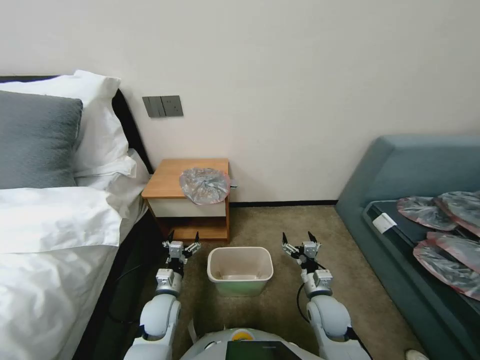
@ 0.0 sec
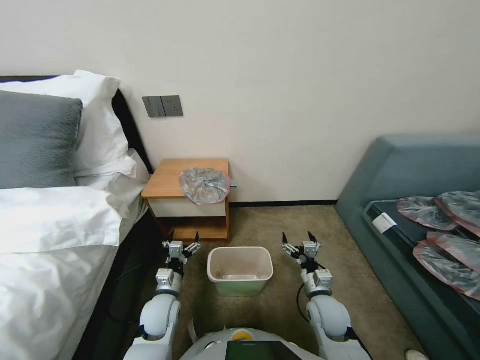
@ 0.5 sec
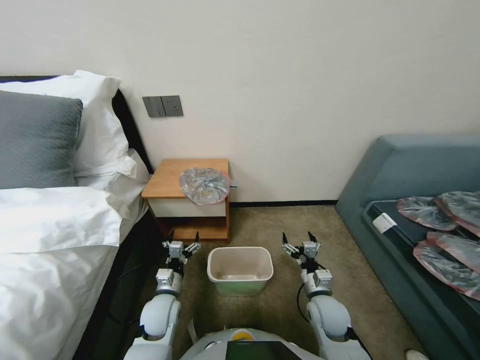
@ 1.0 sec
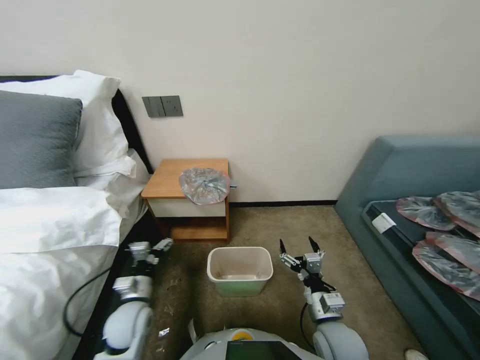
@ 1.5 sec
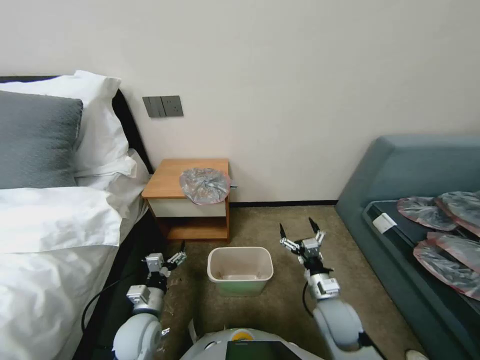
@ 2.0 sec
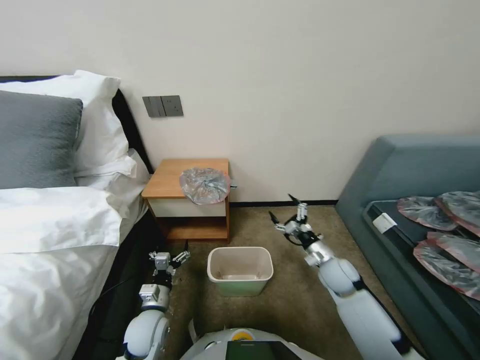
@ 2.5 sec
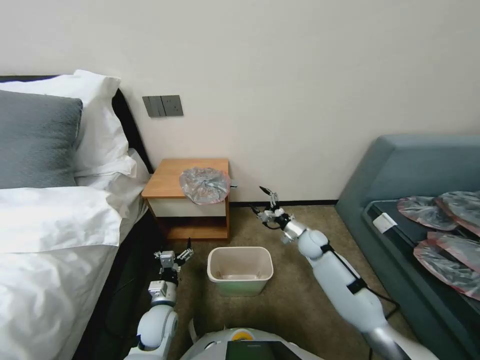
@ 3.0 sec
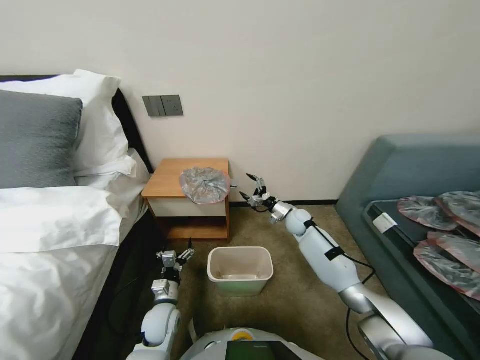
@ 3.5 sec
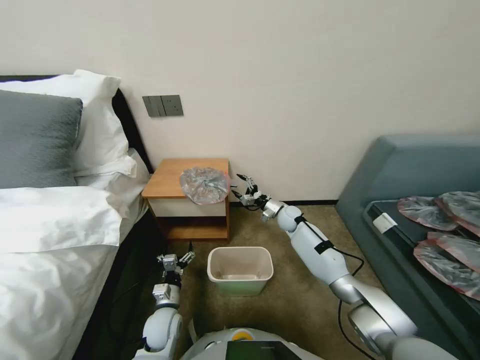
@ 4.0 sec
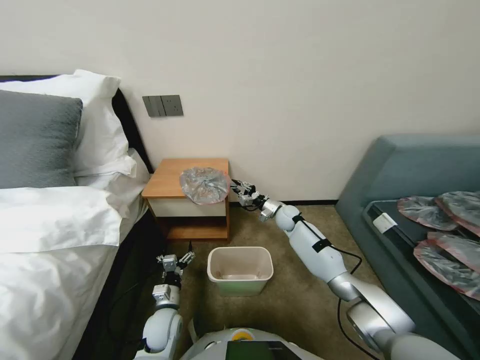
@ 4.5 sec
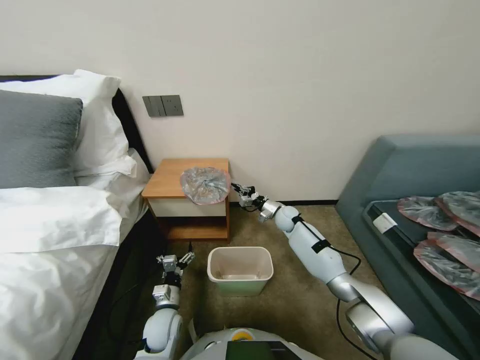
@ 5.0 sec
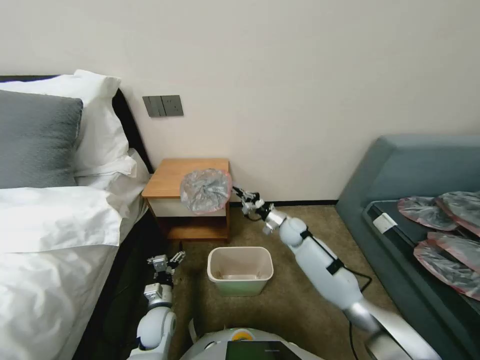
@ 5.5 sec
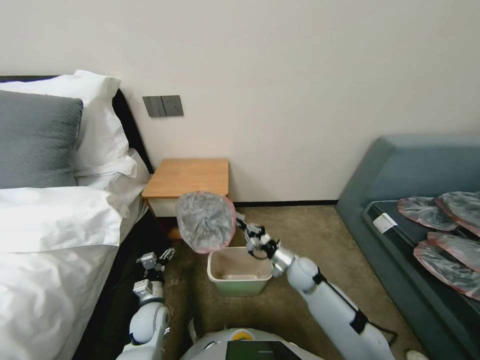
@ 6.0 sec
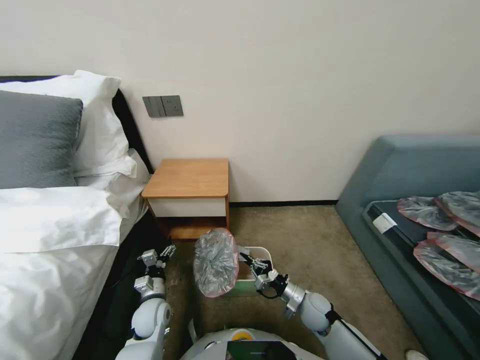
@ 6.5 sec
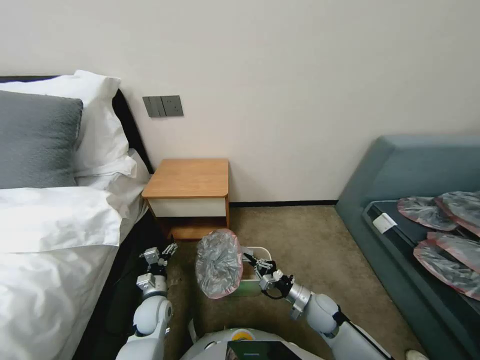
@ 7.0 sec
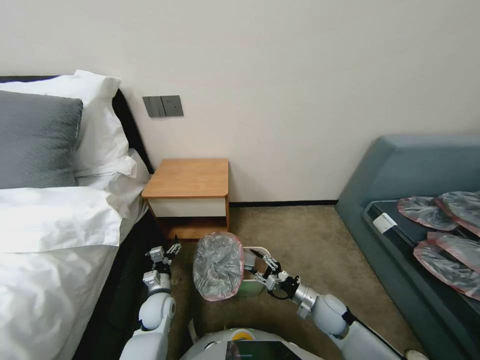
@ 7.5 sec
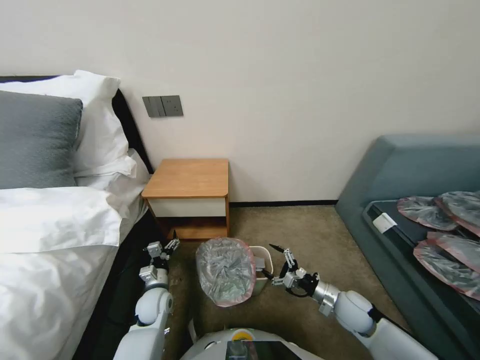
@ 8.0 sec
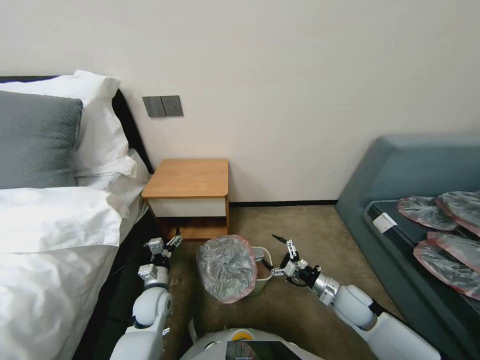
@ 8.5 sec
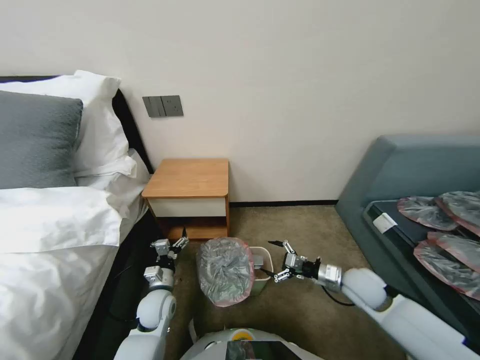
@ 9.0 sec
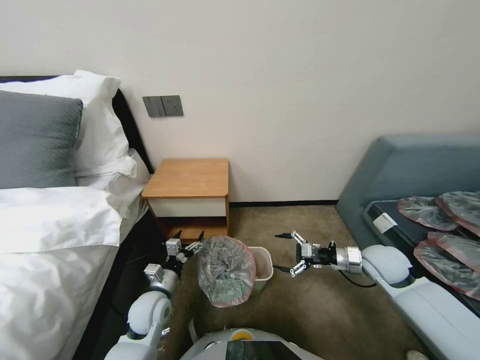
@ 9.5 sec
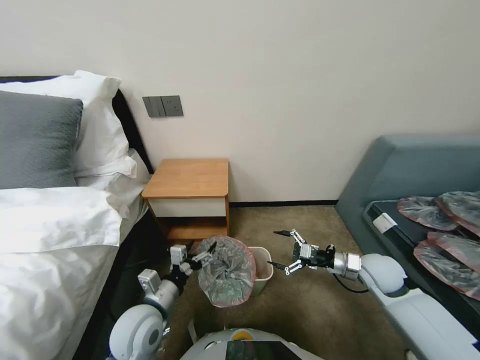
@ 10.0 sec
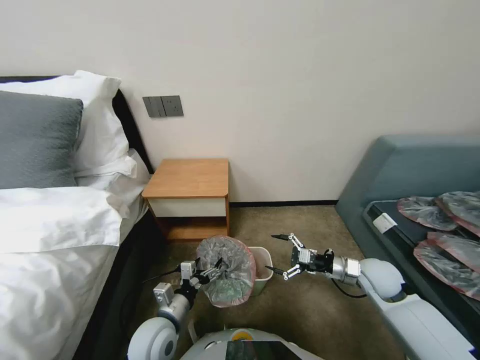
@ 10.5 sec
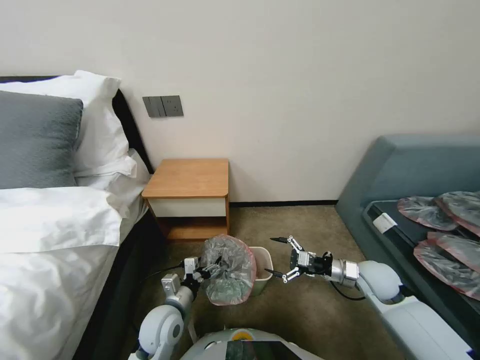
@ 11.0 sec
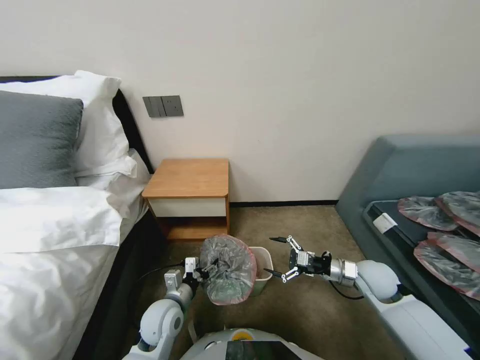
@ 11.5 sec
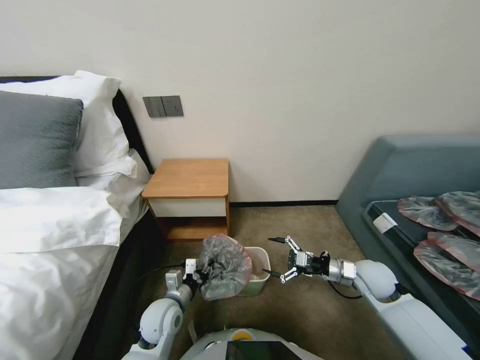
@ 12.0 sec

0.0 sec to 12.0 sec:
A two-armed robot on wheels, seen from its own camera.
Task of the whole recording: Pick up the garbage bag from the table and place it over the trash can.
2.0 sec to 4.0 sec: The right gripper travels forward by about 35 cm. The left gripper shifts roughly 5 cm downward.
4.0 sec to 6.0 sec: The right gripper shifts about 15 cm backward, and closes its fingers.
6.0 sec to 8.0 sec: The right gripper travels backward and to the right by some 15 cm, and opens.
8.0 sec to 10.0 sec: The right gripper shifts roughly 15 cm upward and forward. The left gripper travels upward and backward by approximately 15 cm.
10.0 sec to 12.0 sec: The left gripper heads downward, covering approximately 10 cm, and closes up.

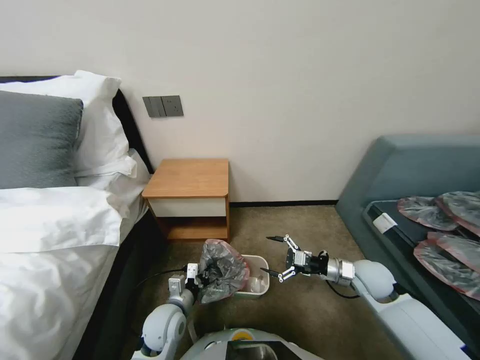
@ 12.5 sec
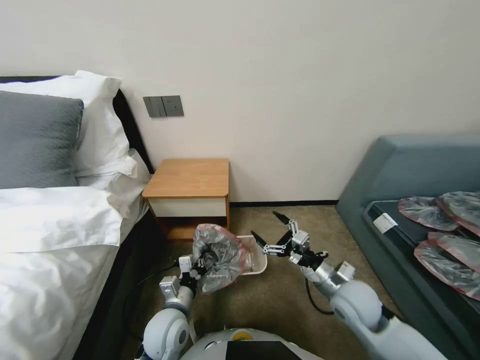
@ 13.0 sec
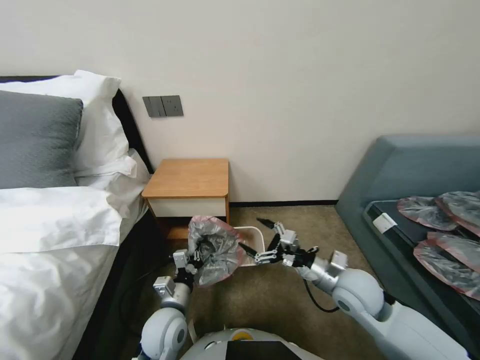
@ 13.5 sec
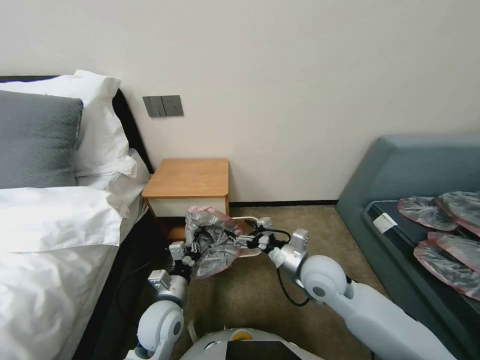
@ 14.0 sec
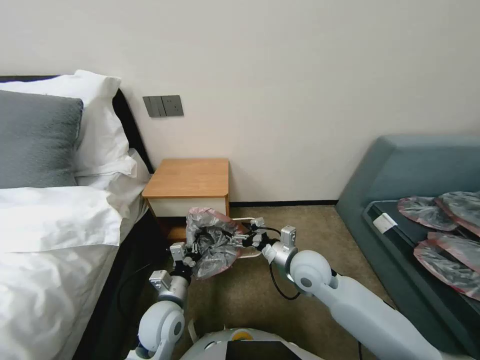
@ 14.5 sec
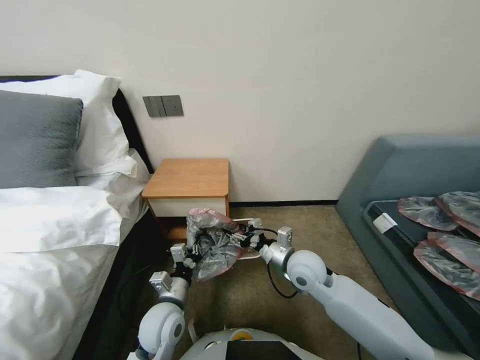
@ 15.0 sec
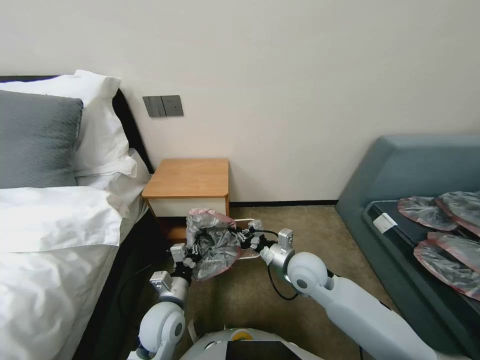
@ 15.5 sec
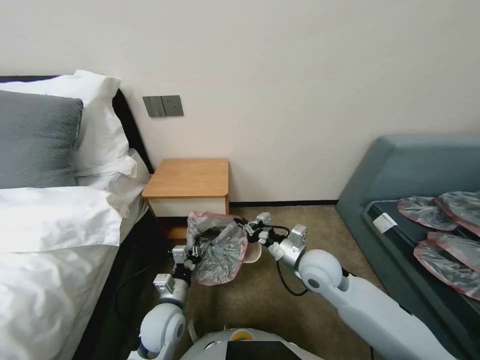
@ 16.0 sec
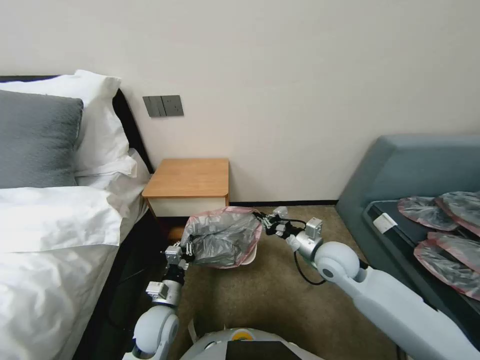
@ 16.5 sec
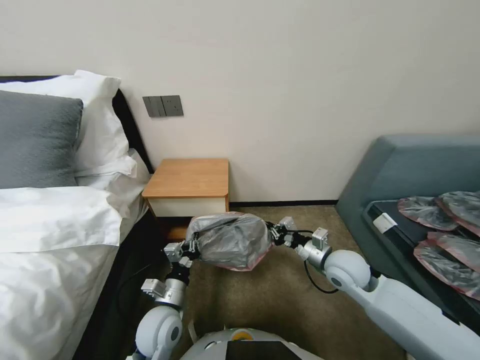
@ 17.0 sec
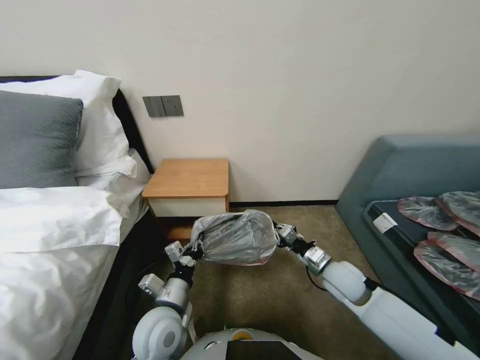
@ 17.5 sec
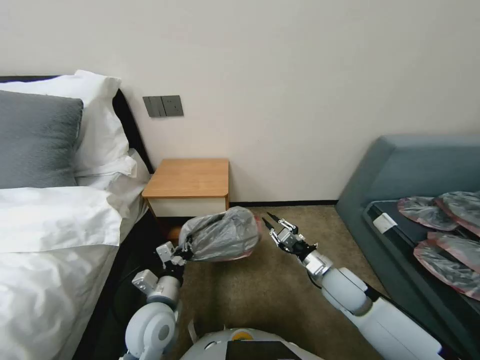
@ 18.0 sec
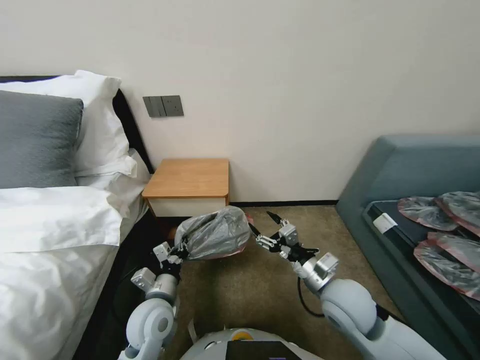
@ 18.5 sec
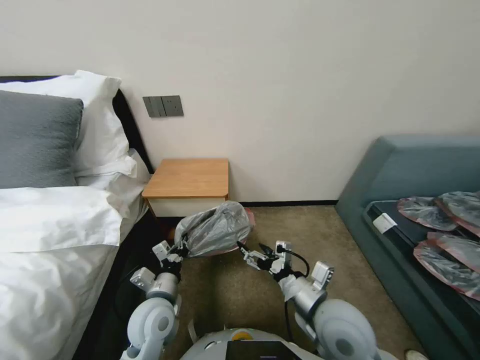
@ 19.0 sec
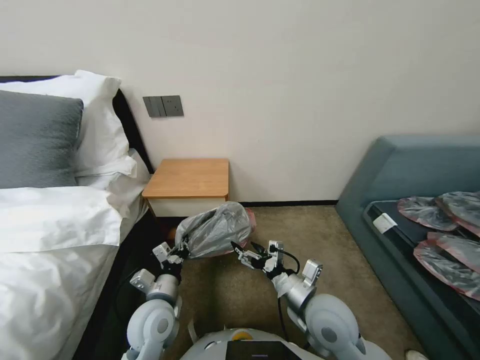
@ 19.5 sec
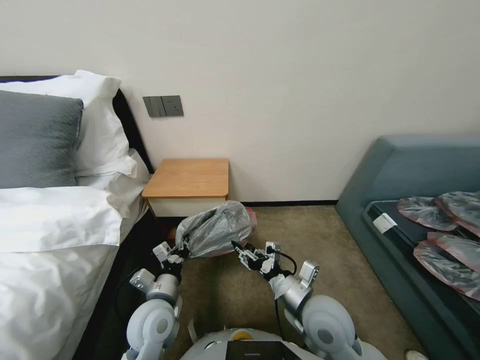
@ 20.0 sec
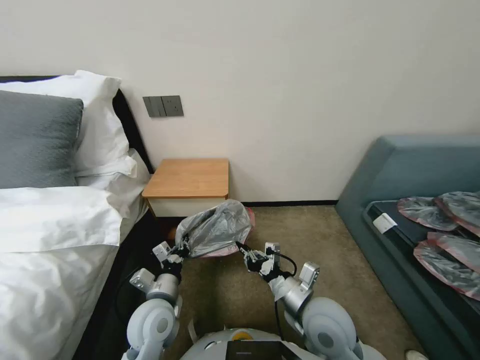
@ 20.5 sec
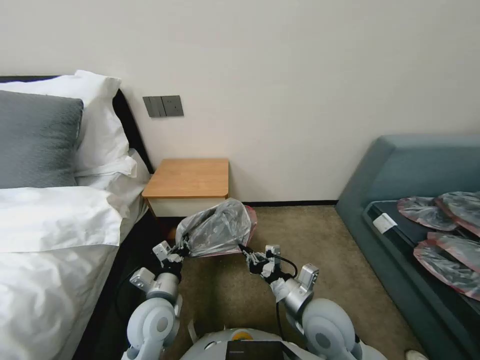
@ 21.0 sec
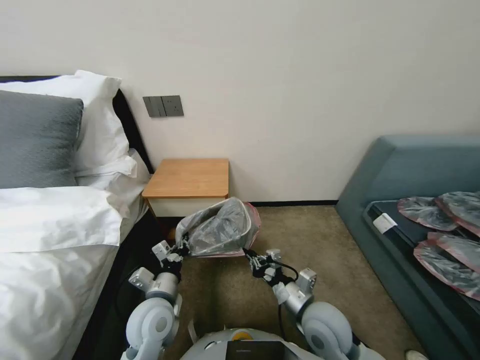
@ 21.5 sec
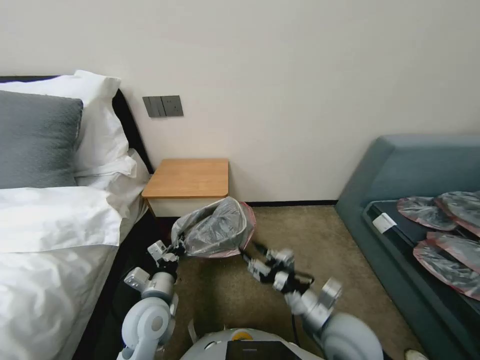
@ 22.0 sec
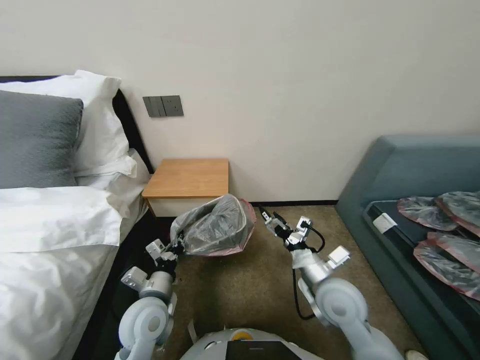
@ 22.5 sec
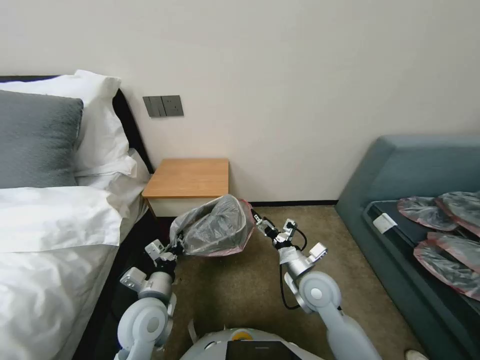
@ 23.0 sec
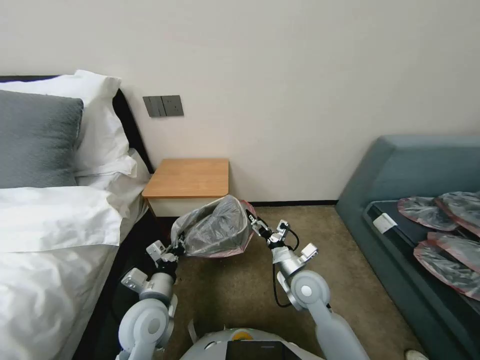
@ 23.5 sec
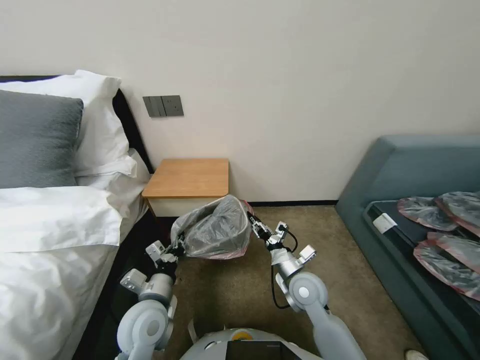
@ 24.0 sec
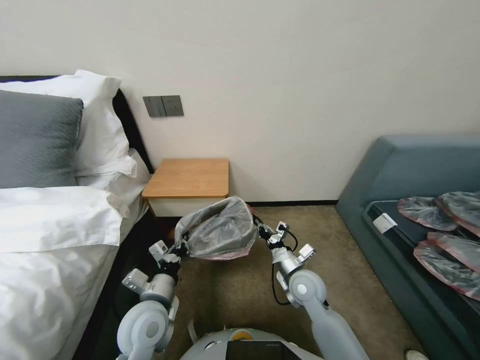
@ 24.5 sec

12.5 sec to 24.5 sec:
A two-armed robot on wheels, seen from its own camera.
Task of the whole recording: Pick up the garbage bag from the table and place it over the trash can.
12.5 sec to 14.5 sec: The right gripper moves to the left, roughly 20 cm.
14.5 sec to 16.5 sec: The right gripper heads to the right, covering about 5 cm, and closes up.
16.5 sec to 18.5 sec: The right gripper travels backward by roughly 10 cm, and opens, while the left gripper travels upward by some 5 cm.
18.5 sec to 20.5 sec: The right gripper goes about 5 cm to the left, and closes its fingers.
20.5 sec to 22.5 sec: The right gripper opens its fingers.
22.5 sec to 24.5 sec: The right gripper heads downward and forward, covering approximately 10 cm, and closes its fingers.

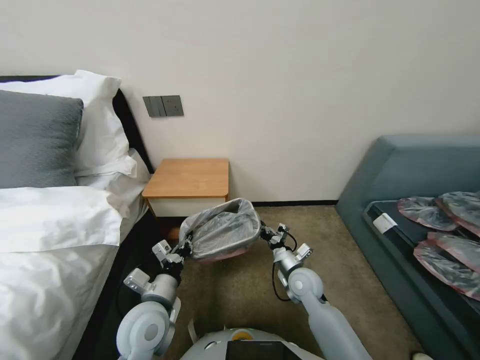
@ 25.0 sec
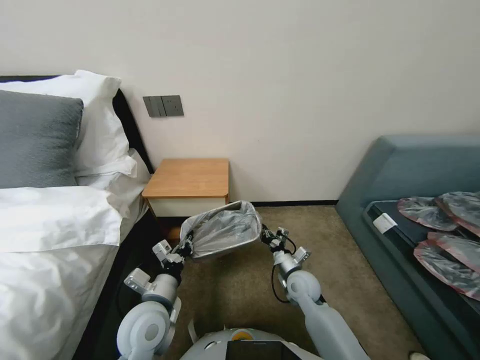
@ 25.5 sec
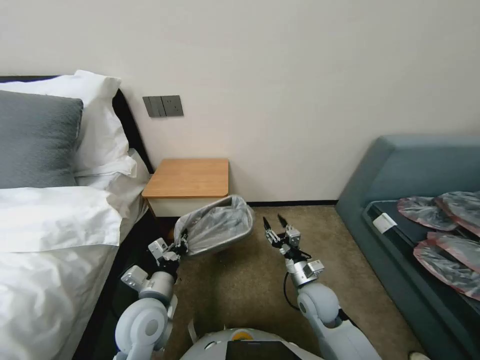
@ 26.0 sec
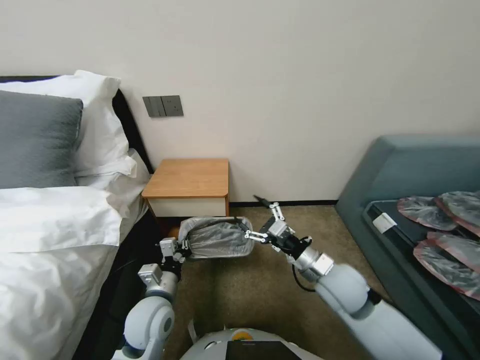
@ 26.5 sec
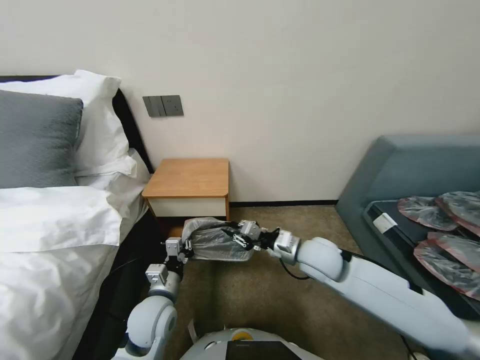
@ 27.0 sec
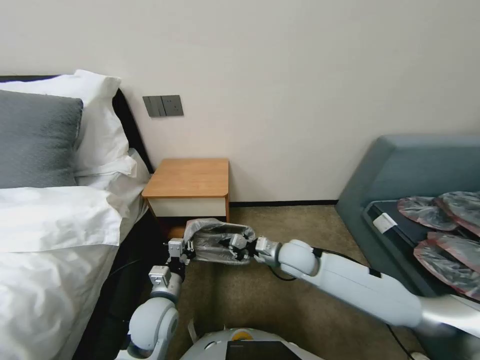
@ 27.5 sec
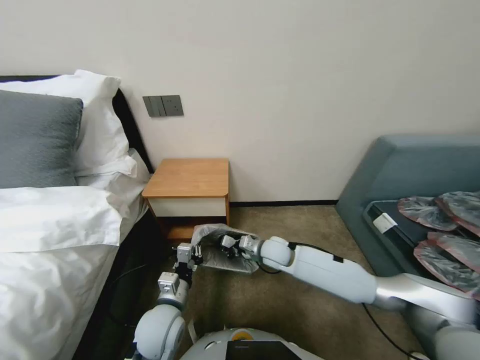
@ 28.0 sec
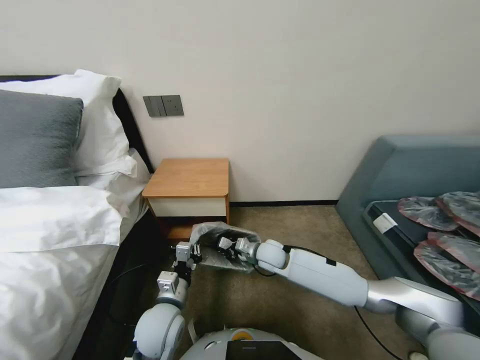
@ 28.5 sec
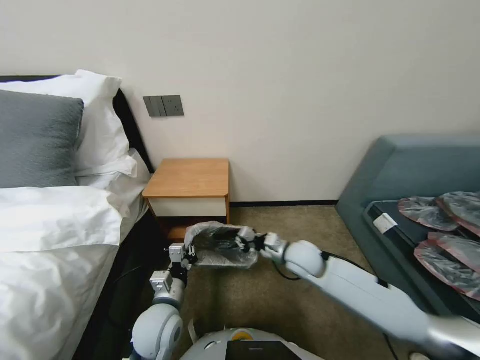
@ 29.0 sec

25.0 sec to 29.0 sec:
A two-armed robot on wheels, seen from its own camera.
Task of the whole recording: Pick up the garbage bag from the table and place it over the trash can.
25.0 sec to 27.0 sec: The right gripper travels upward by about 15 cm, and opens up.
27.0 sec to 29.0 sec: The right gripper goes about 10 cm downward and forward, and closes its fingers.
